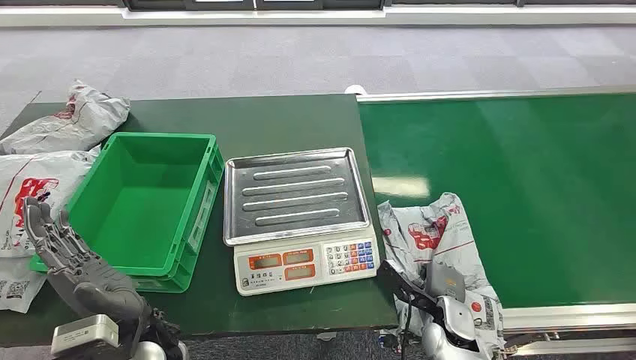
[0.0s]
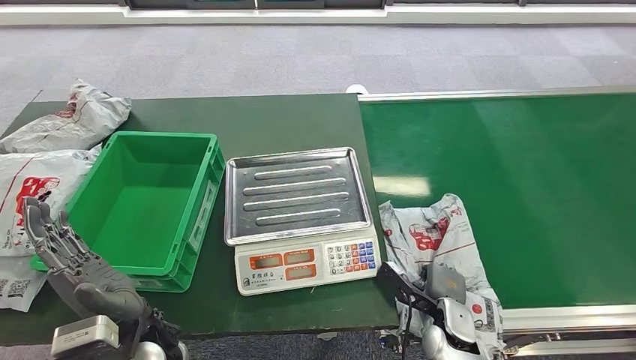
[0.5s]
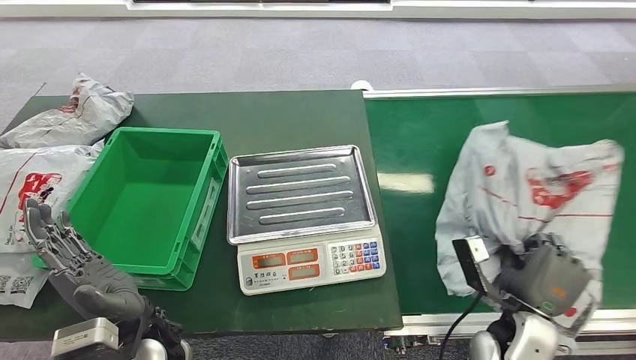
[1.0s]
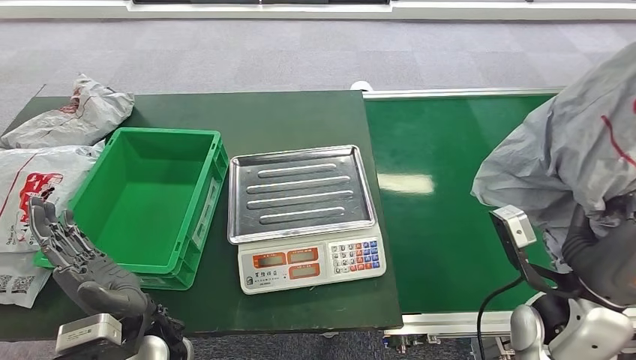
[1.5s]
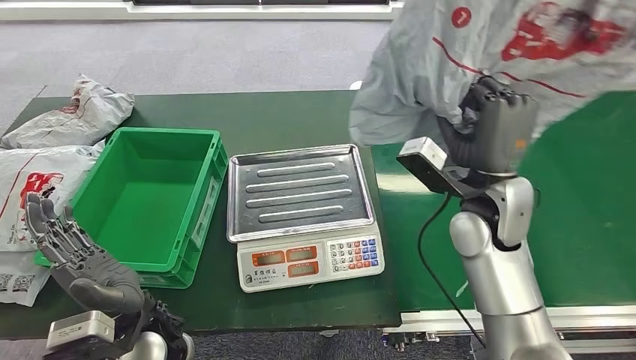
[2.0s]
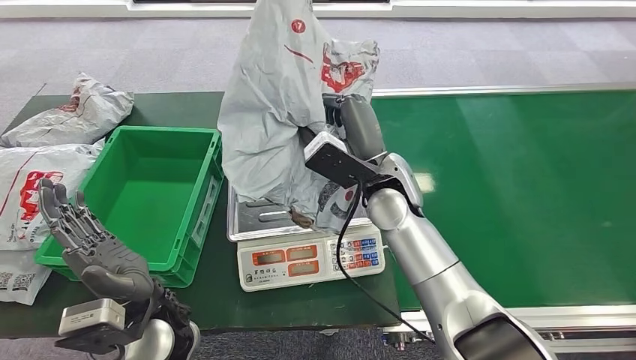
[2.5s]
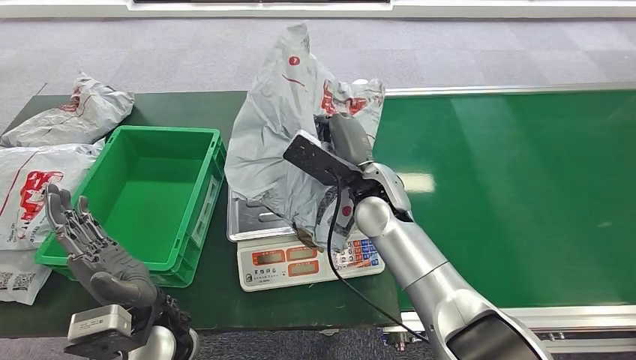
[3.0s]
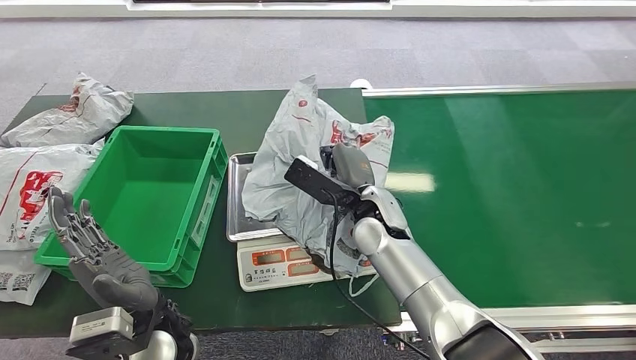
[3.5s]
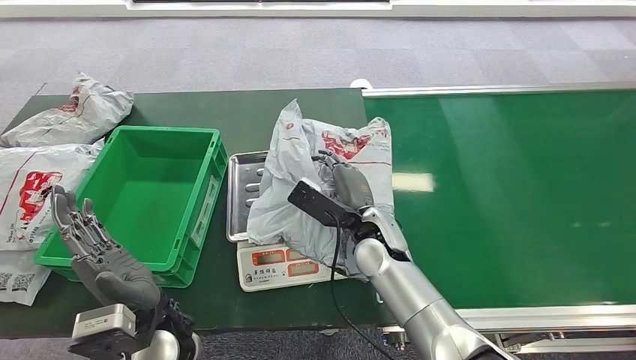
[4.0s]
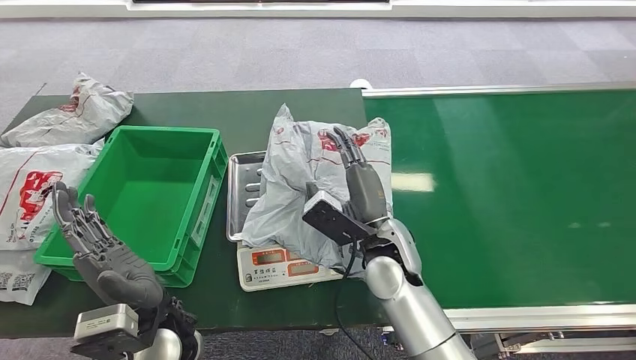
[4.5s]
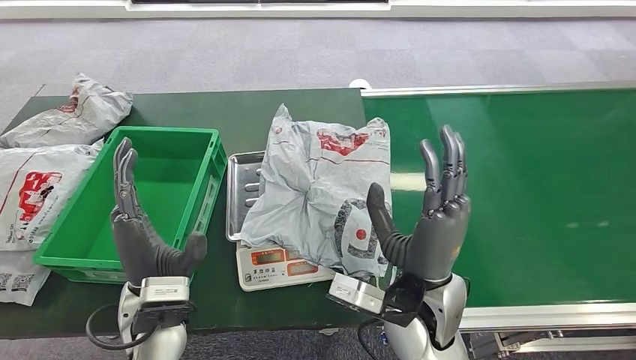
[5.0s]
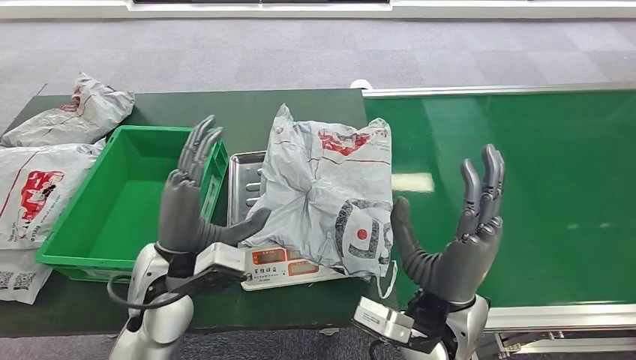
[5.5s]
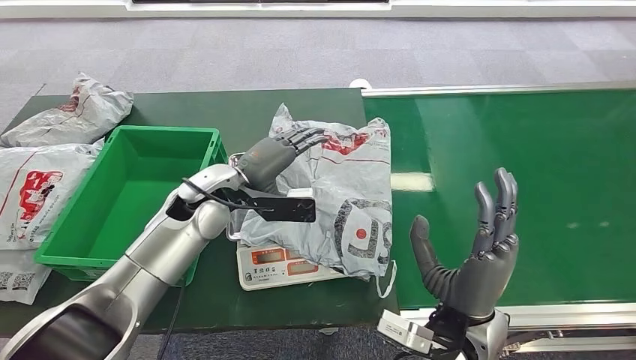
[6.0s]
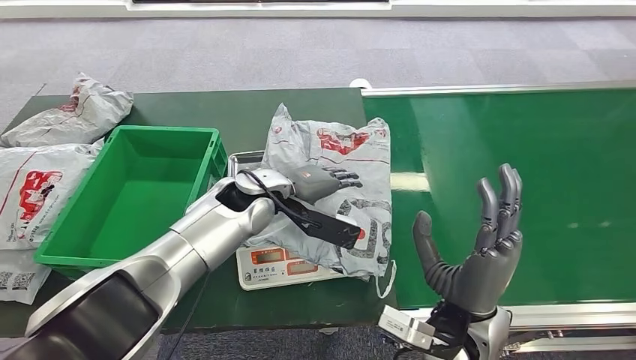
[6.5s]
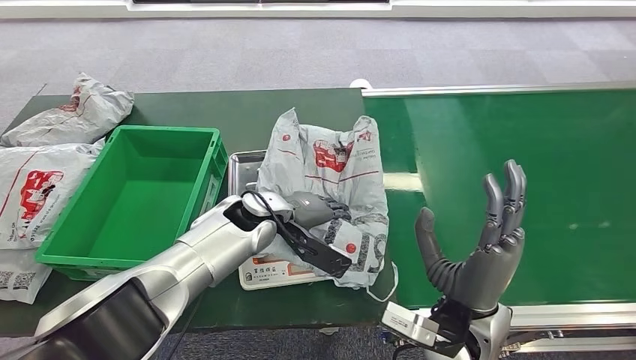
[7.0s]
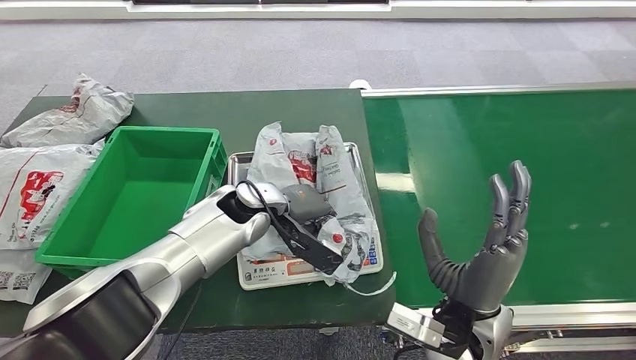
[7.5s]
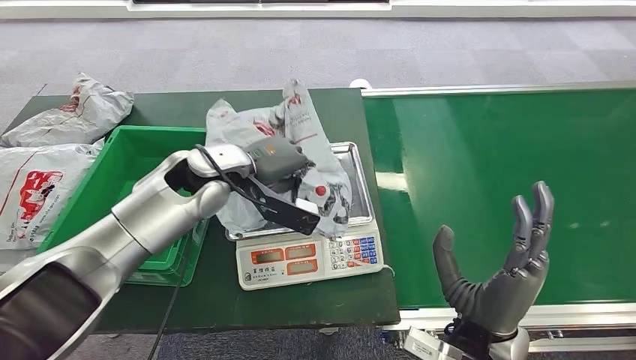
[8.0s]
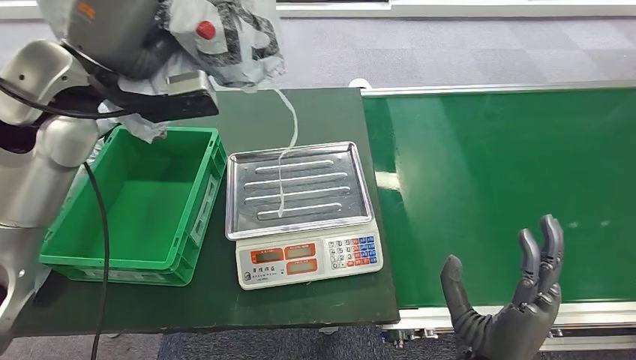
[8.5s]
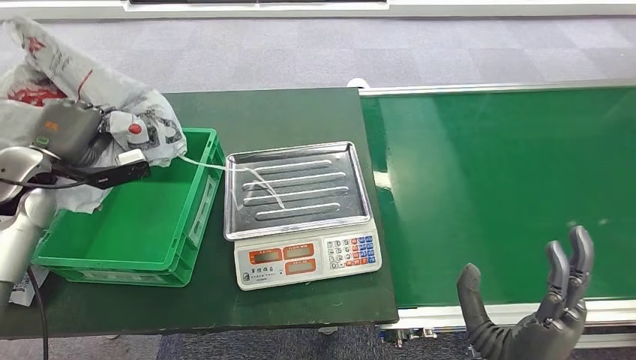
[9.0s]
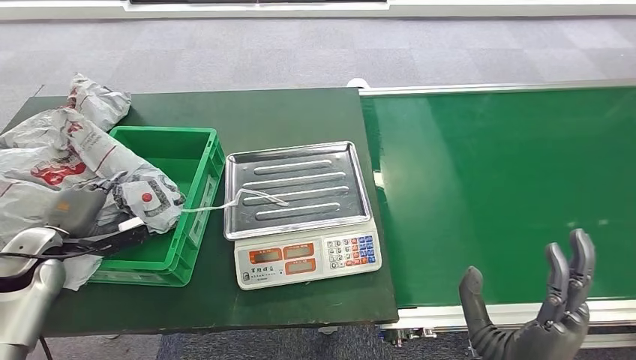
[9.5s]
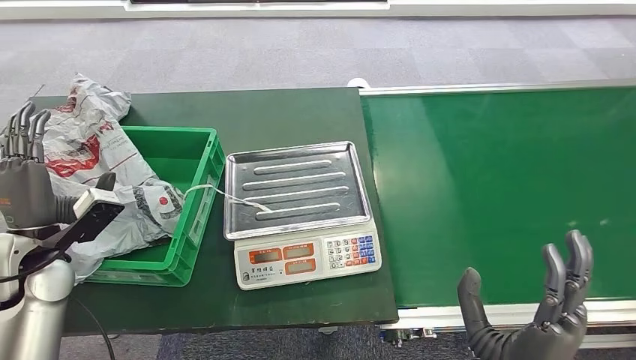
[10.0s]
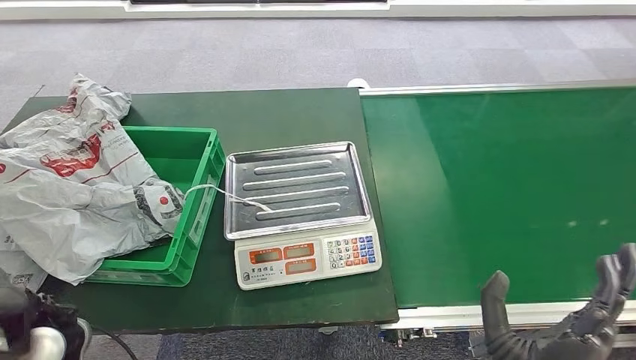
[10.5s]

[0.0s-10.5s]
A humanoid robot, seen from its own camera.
Step, 0.0s to 1.0s: Pick up the package from the conveyor belt.
Step, 2.0s to 6.0s: Place the package onto the inbound machine.
Step, 6.5s to 8.0s: Pick up the package from the inbound machine.
Step, 8.5s to 10.5s: Place the package into the parcel locker.

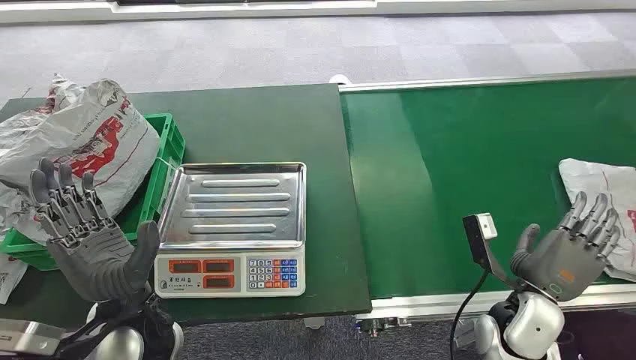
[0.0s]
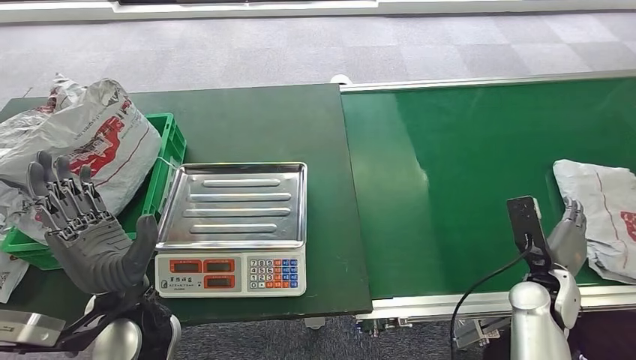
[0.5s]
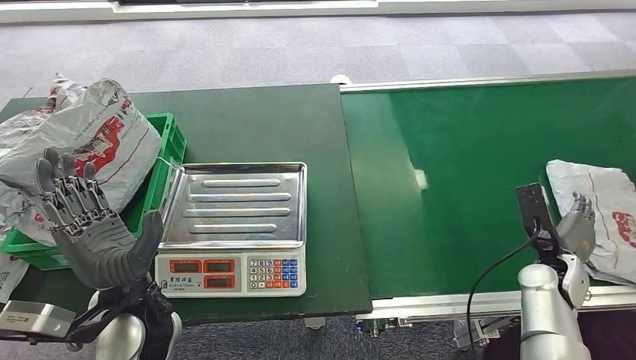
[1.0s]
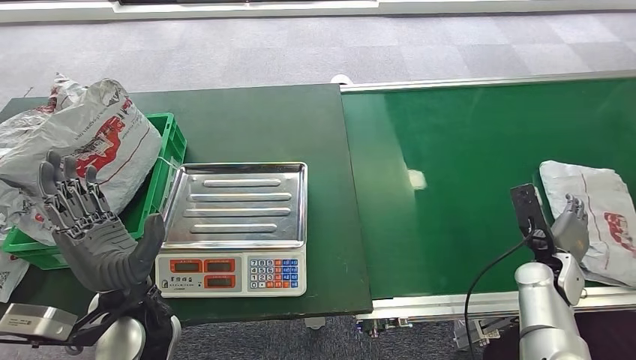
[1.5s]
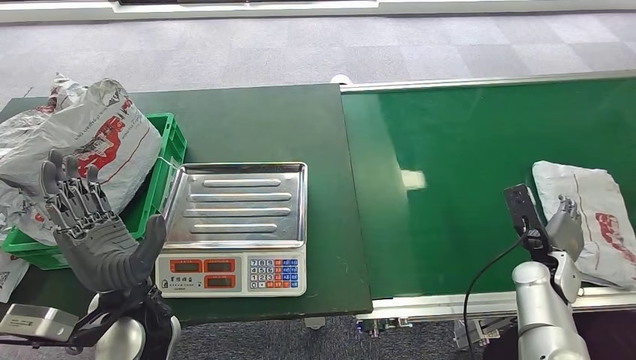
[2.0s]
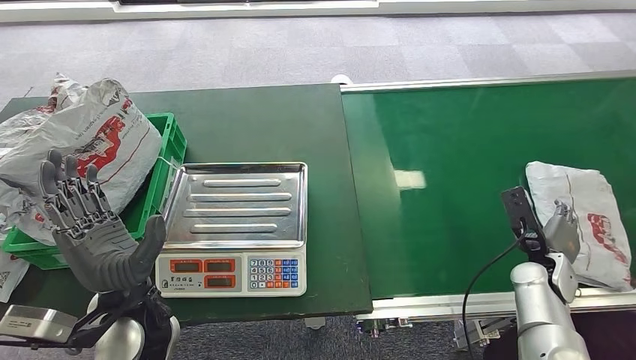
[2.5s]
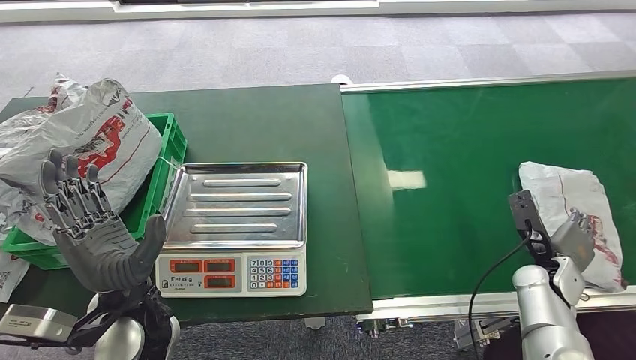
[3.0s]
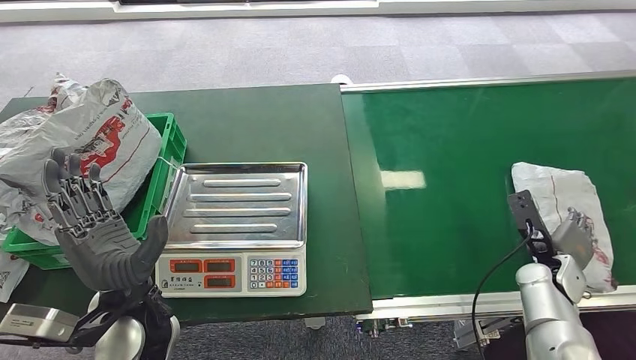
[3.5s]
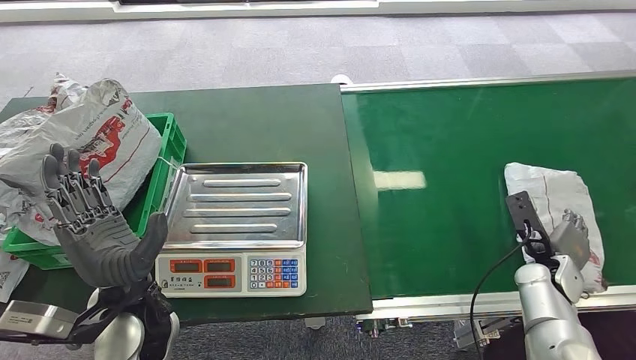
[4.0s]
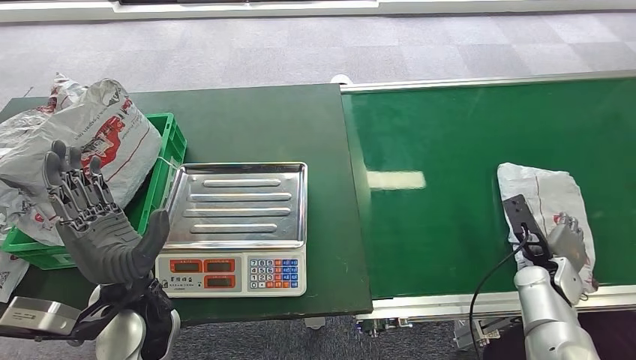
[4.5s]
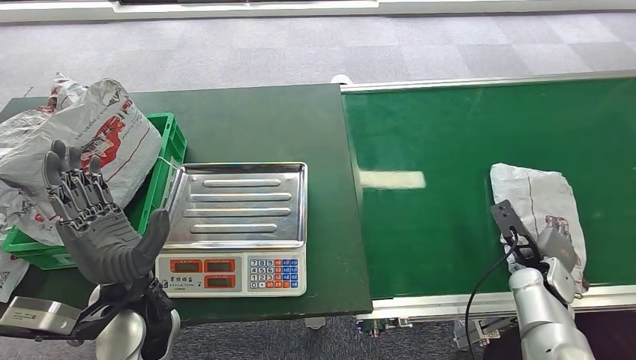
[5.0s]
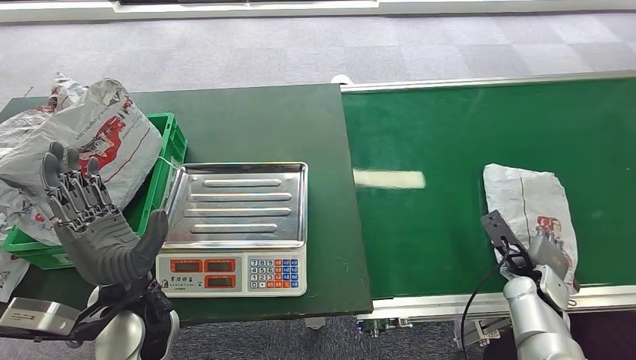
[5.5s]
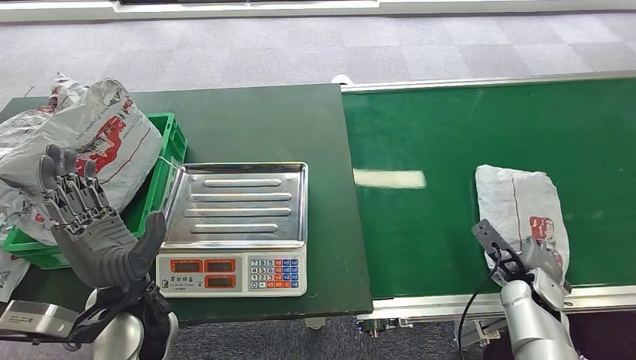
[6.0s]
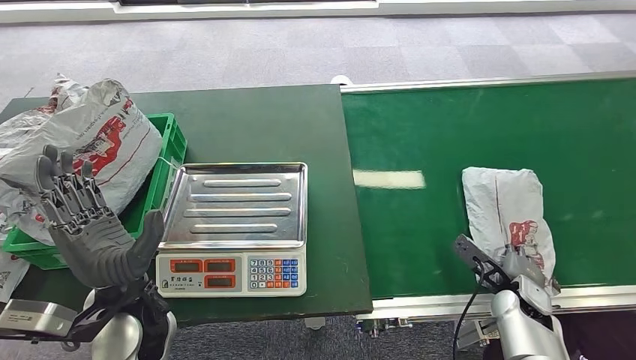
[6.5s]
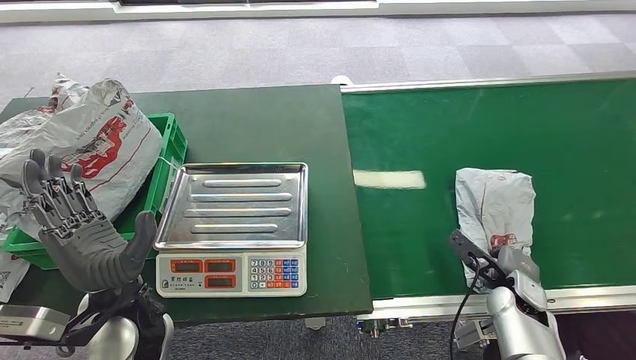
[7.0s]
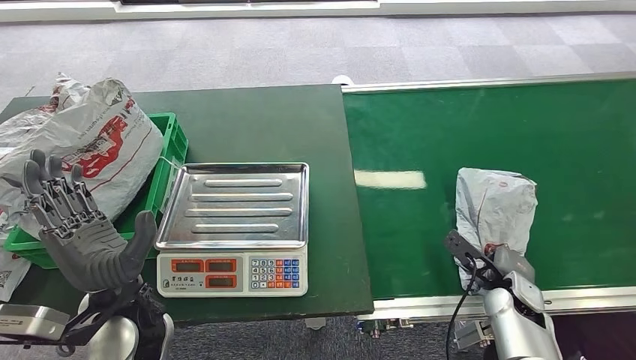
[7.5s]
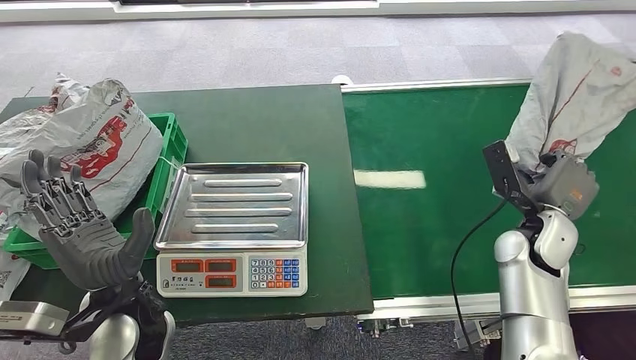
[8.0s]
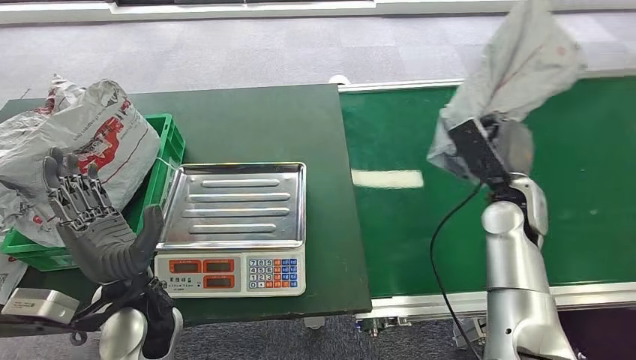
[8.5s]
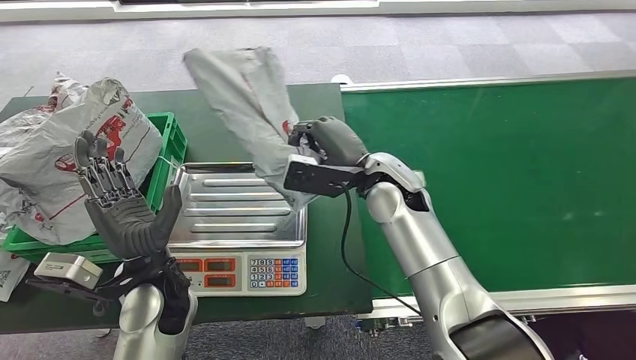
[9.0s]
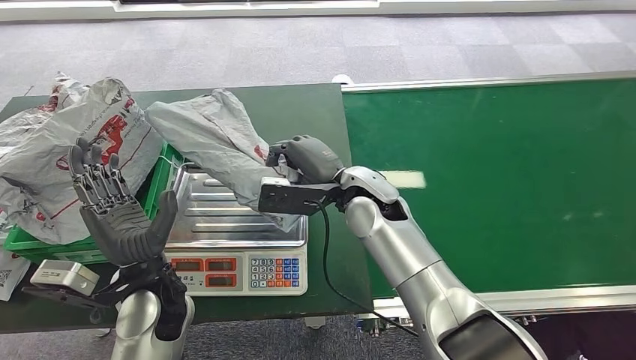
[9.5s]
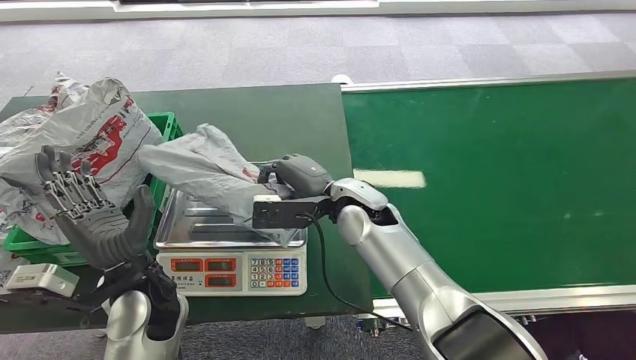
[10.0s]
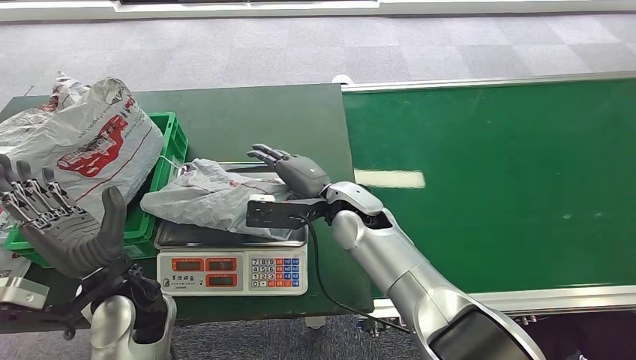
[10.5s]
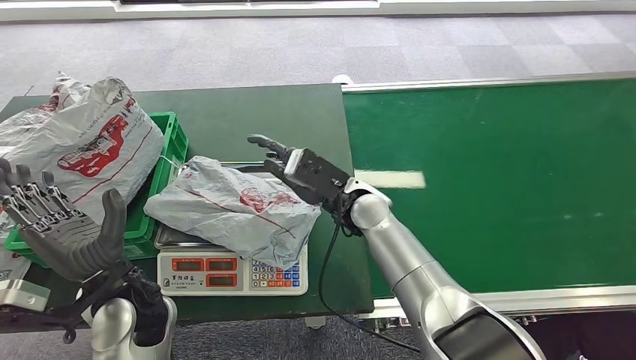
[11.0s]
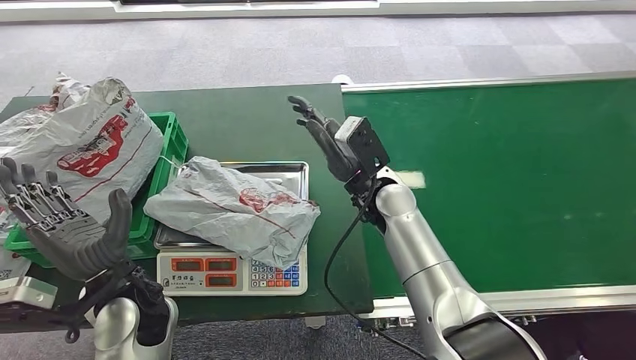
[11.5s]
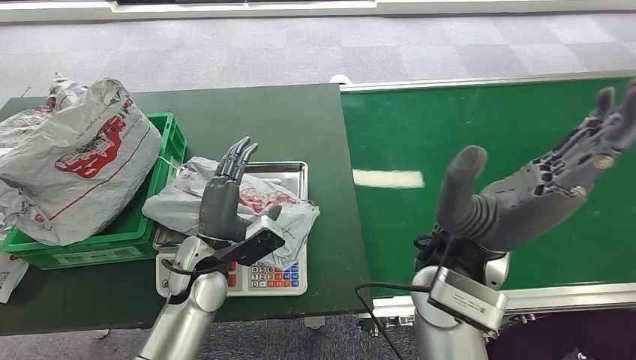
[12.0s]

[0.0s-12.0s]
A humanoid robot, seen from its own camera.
Step, 0.0s to 8.5s: Pick up the package from the conveyor belt.
Step, 9.0s to 10.5s: Place the package onto the inbound machine.
2.0s to 4.0s: There are only small adjustments of the hands.
6.0s to 8.0s: The right hand moves upward, about 10 cm.
